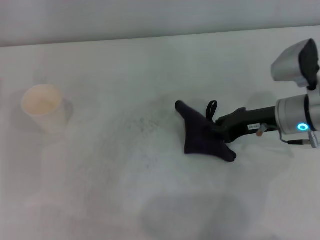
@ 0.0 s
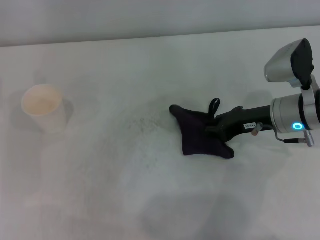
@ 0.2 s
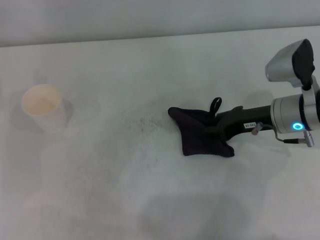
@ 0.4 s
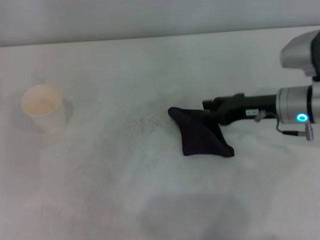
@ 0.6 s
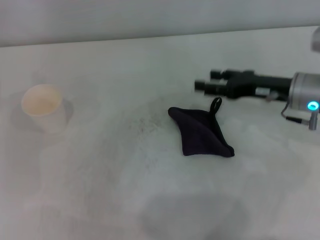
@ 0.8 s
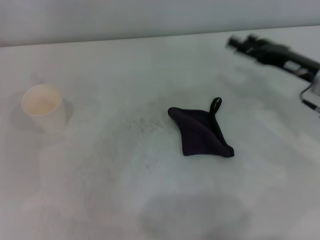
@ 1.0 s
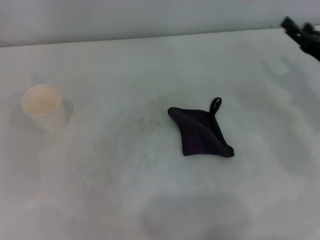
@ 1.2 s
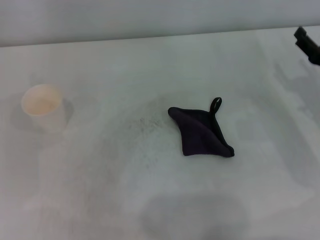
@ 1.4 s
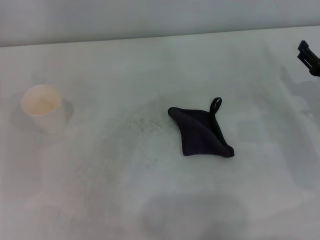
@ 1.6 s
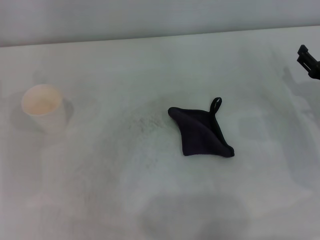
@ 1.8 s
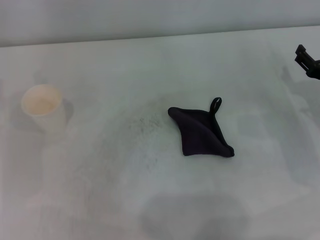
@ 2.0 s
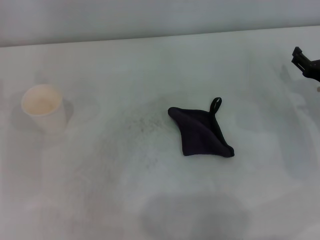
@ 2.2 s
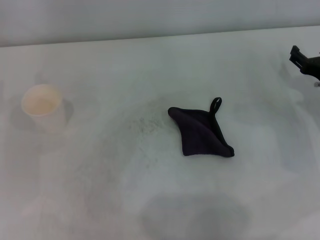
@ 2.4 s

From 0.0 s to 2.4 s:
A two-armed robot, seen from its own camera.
Step, from 0.0 s to 0.4 s: Place the rag on the table with the right gripper.
From 0.0 s to 1.2 s: The right gripper shifts about 10 cm to the right, and opens up.
